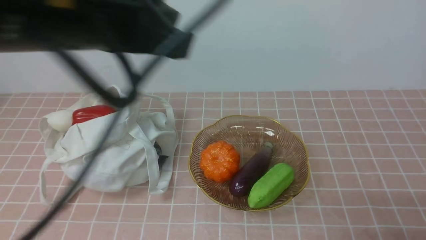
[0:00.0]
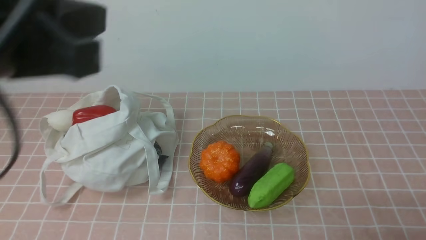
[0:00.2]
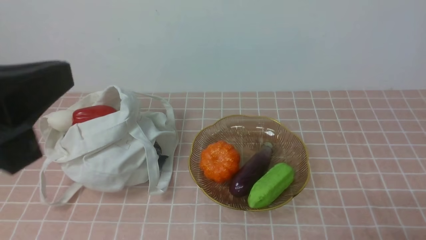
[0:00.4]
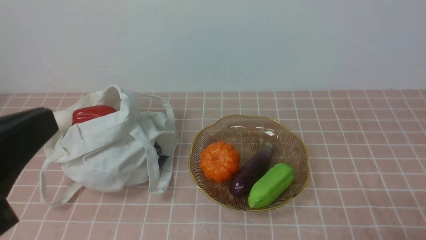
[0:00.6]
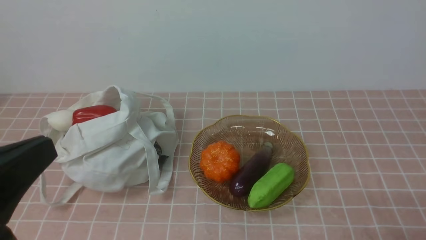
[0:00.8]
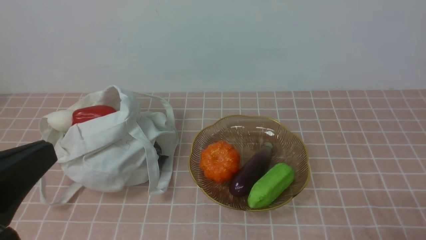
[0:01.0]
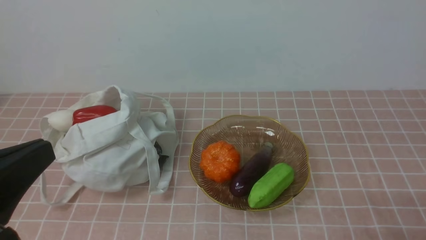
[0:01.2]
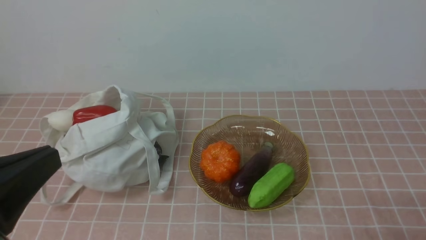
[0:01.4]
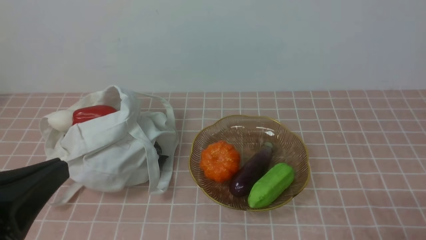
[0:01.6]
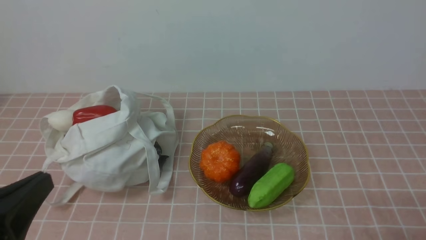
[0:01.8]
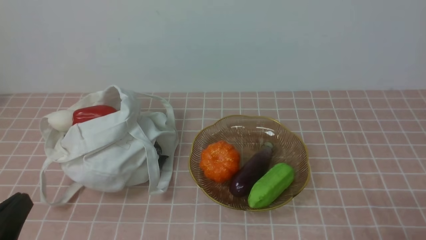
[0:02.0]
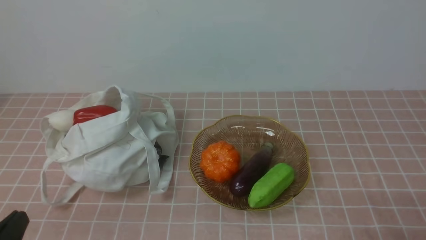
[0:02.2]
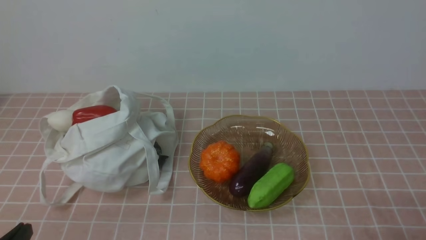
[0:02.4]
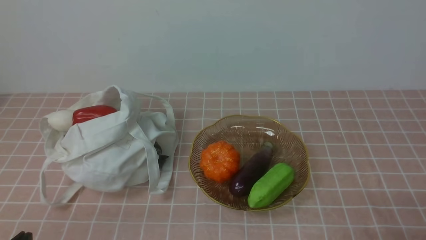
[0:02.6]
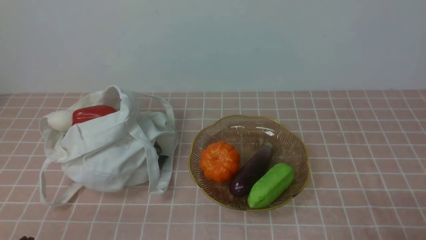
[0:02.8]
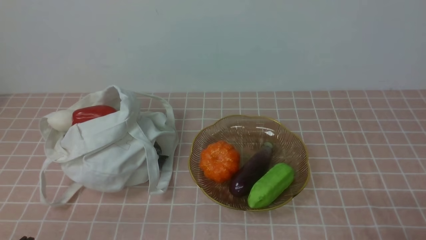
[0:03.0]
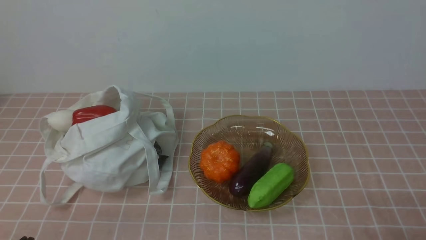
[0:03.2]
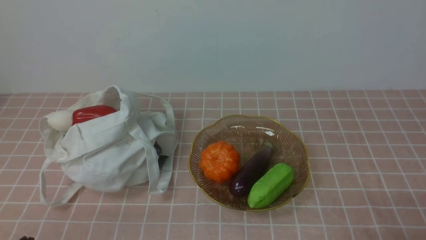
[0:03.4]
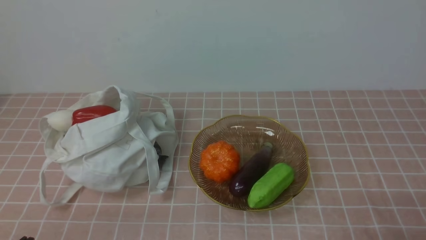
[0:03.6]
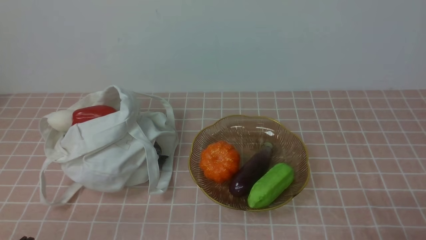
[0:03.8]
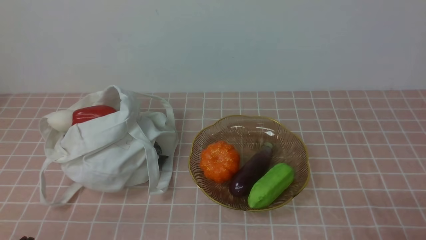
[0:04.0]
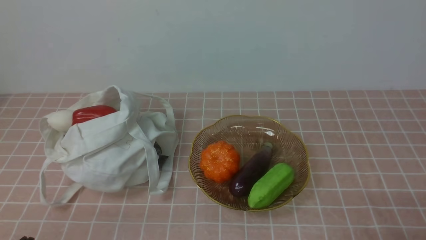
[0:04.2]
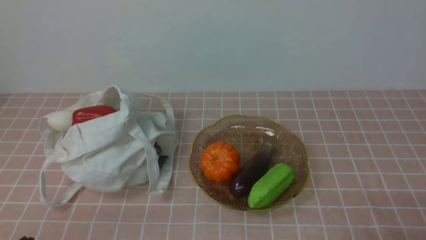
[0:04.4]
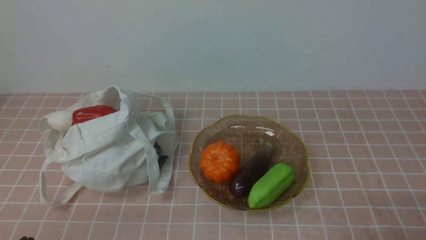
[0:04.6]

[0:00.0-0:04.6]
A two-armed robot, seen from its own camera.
Task of the whole recording: take vegetables from bag on pink coffee tablecloth place on plate.
0:00.0 to 0:01.6: The left gripper heads backward, to the left and downward, covering roughly 25 cm.
0:01.6 to 0:03.0: The left gripper moves downward, some 15 cm.
0:03.0 to 0:04.6: Neither gripper changes place.
